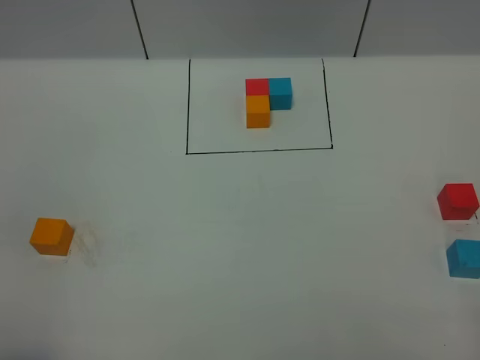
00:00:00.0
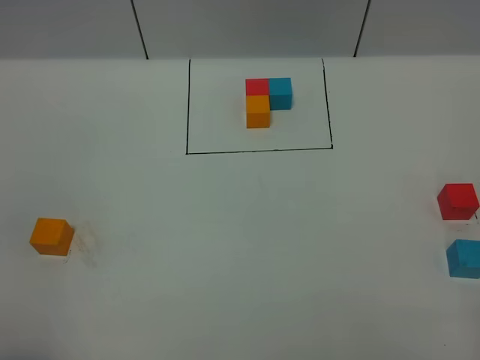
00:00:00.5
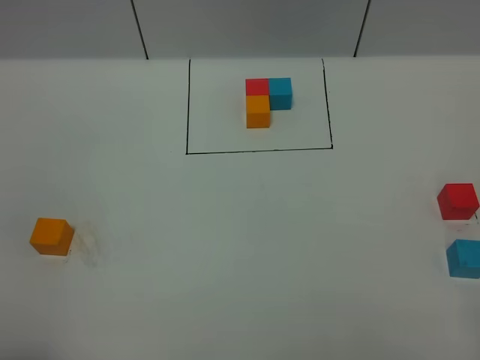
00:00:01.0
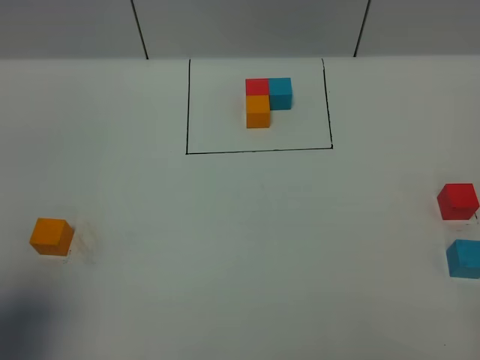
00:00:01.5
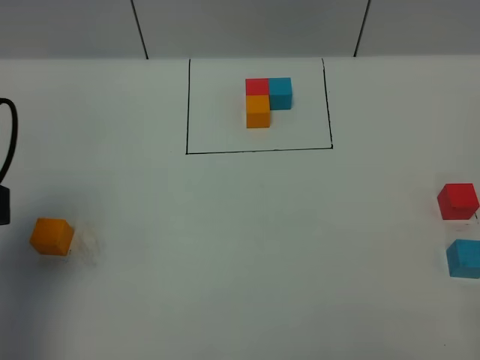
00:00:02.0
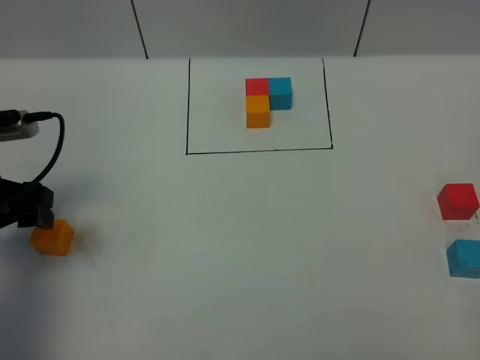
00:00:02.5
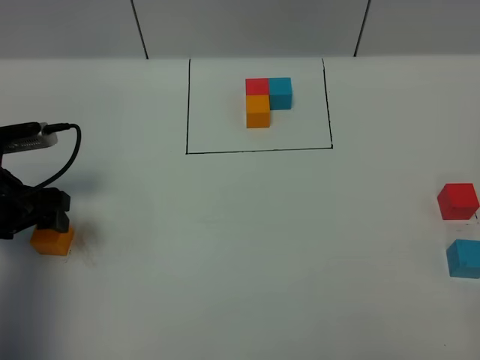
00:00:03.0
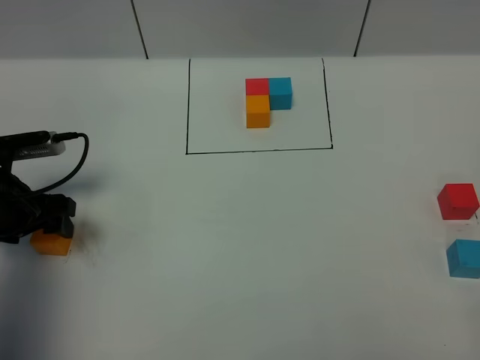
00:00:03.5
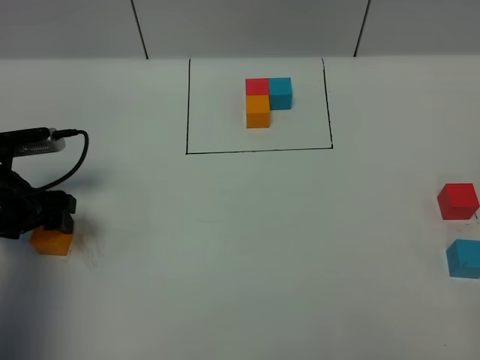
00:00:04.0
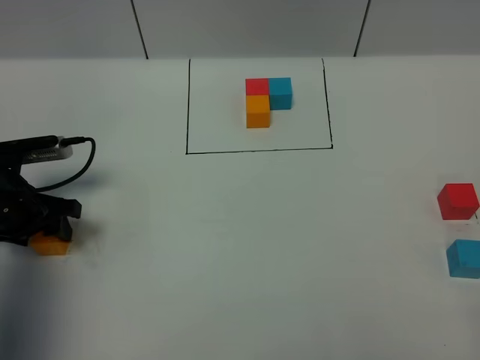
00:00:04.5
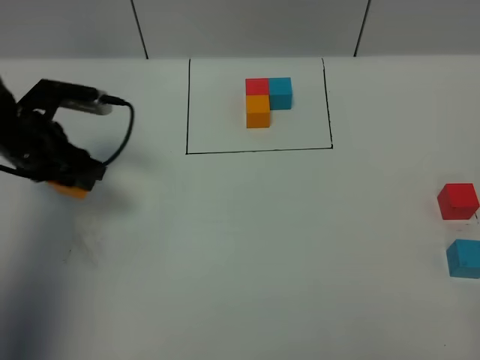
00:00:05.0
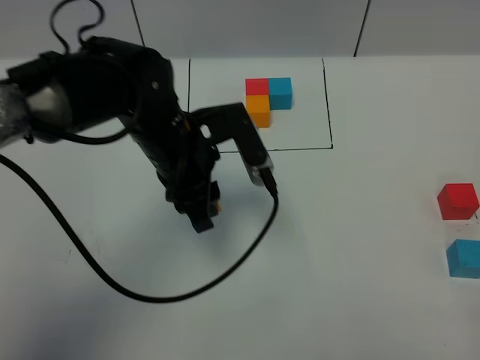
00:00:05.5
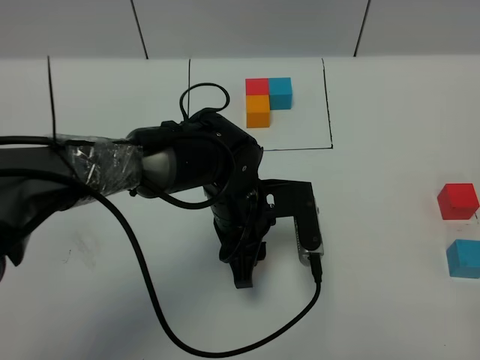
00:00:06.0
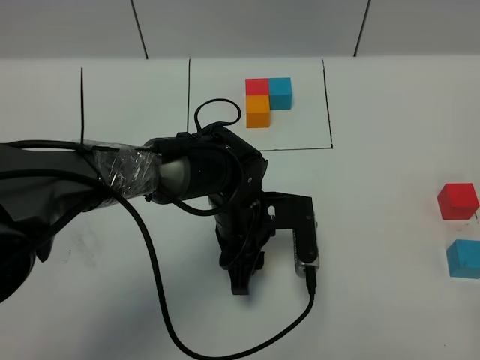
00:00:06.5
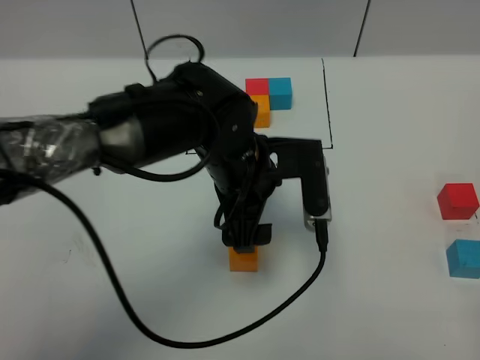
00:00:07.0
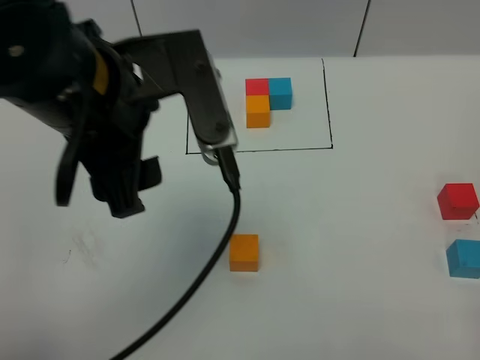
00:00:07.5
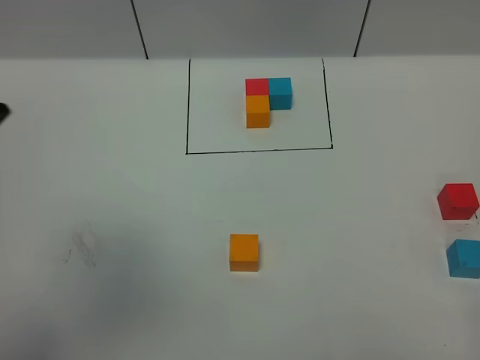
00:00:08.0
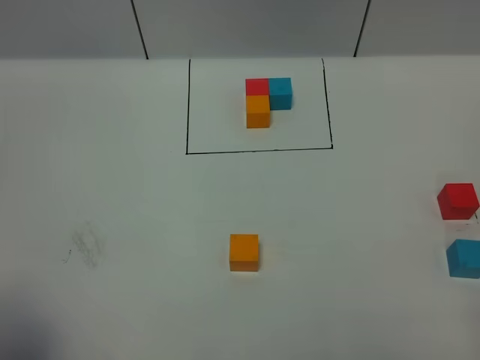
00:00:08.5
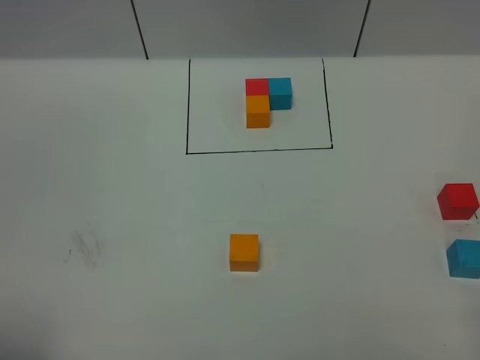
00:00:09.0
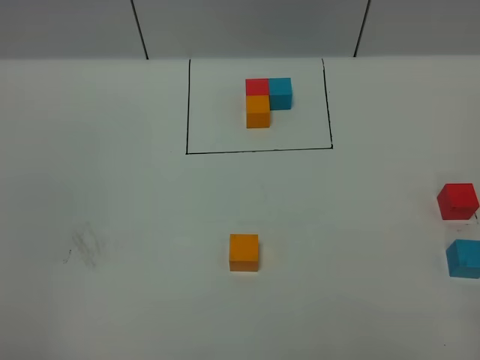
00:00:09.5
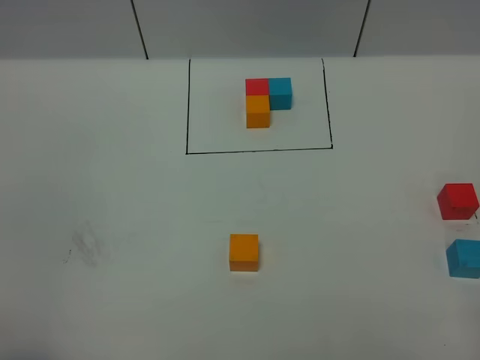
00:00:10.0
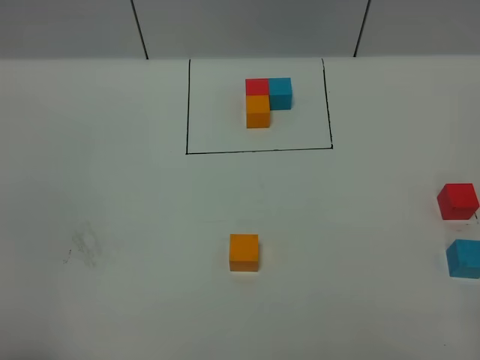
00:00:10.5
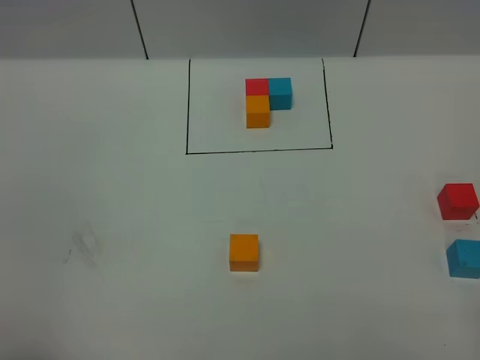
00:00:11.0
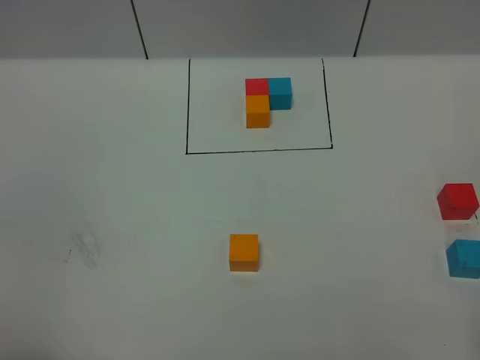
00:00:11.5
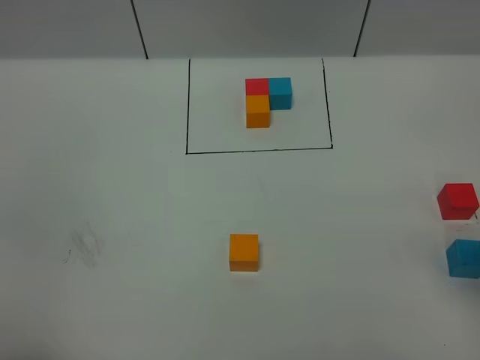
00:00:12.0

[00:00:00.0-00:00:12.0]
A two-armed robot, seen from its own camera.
Task of the whole recording: According to the building block template in front, assemble the scattered blocks together.
Step, 00:00:02.0 to 00:00:07.0: Put the orange cube in the center of the table.
00:00:00.0 to 00:00:02.0: The left gripper moves forward, about 20 cm.
00:00:02.0 to 00:00:04.0: The left gripper travels downward and forward by about 15 cm.
00:00:04.0 to 00:00:06.0: The left gripper heads to the right, covering approximately 30 cm, and closes.
00:00:06.0 to 00:00:08.0: The left gripper shifts approximately 40 cm upward, to the left and backward, and opens its fingers.
00:00:08.0 to 00:00:10.0: The left gripper heads downward, backward and to the left, covering some 25 cm.

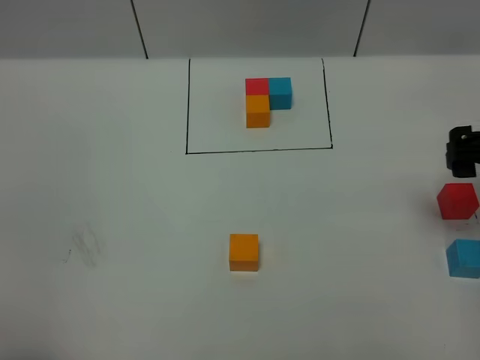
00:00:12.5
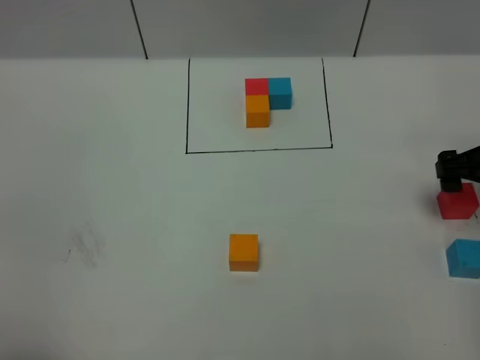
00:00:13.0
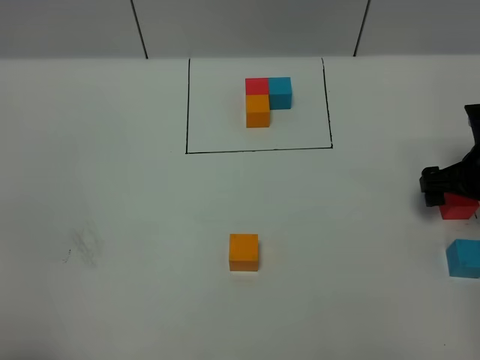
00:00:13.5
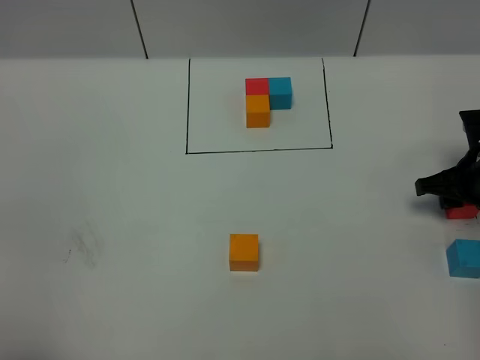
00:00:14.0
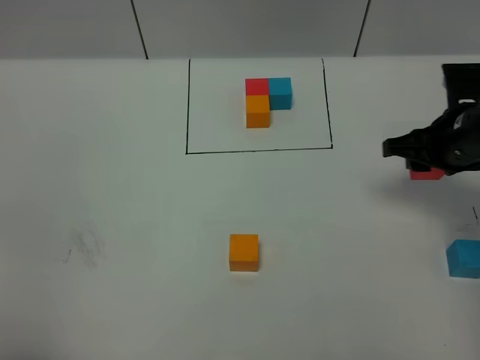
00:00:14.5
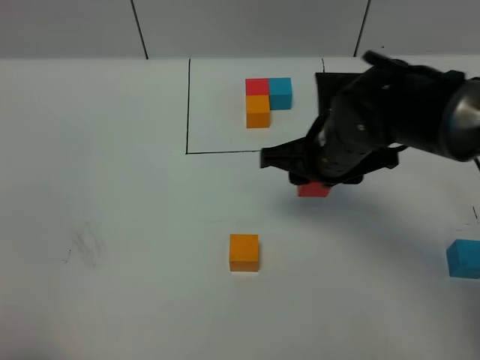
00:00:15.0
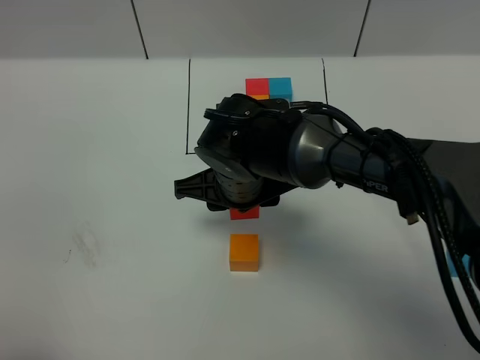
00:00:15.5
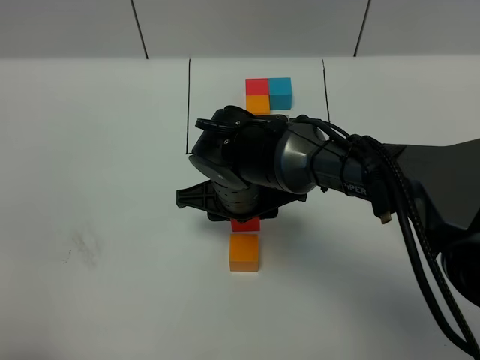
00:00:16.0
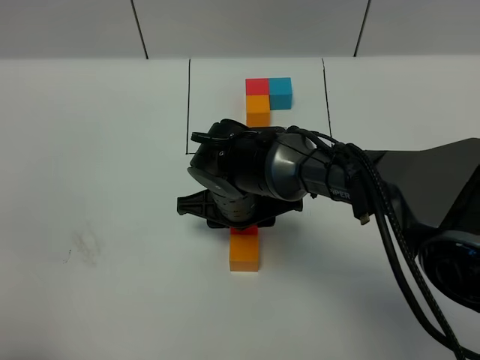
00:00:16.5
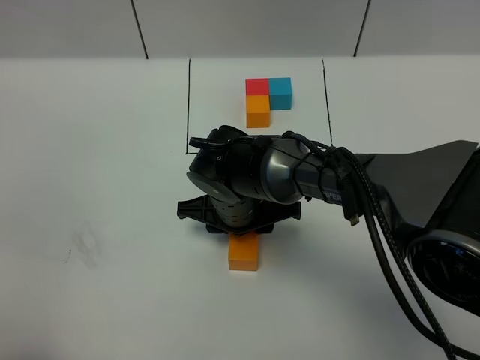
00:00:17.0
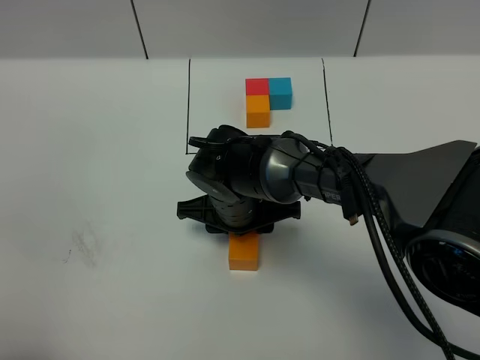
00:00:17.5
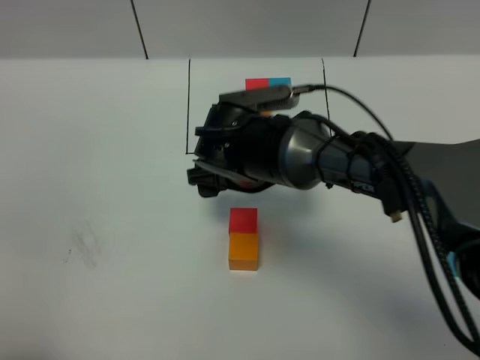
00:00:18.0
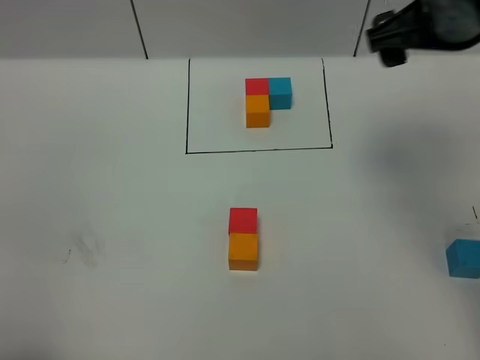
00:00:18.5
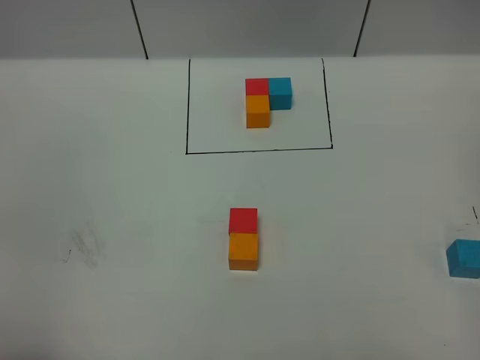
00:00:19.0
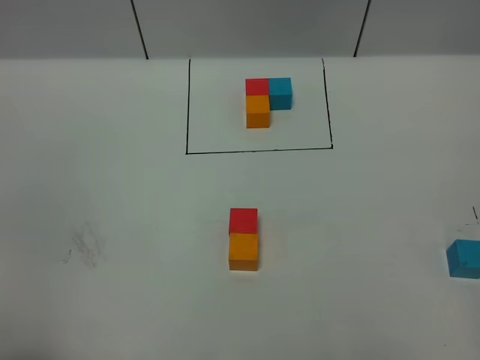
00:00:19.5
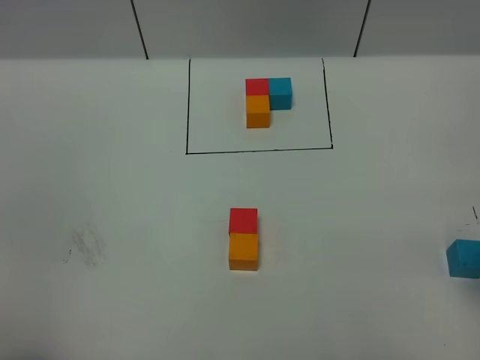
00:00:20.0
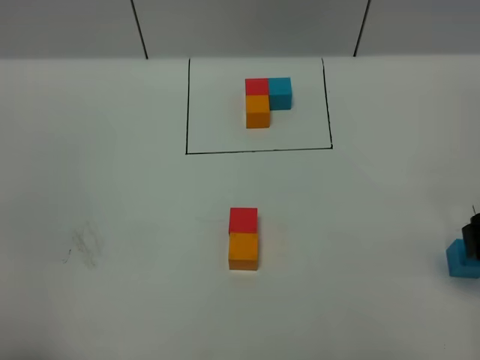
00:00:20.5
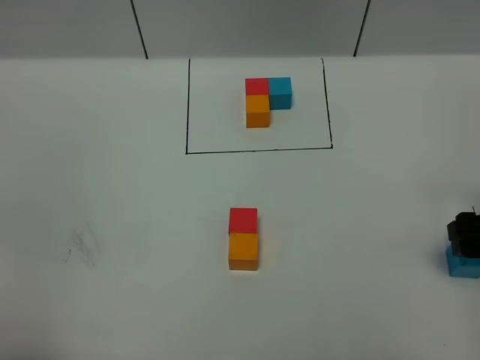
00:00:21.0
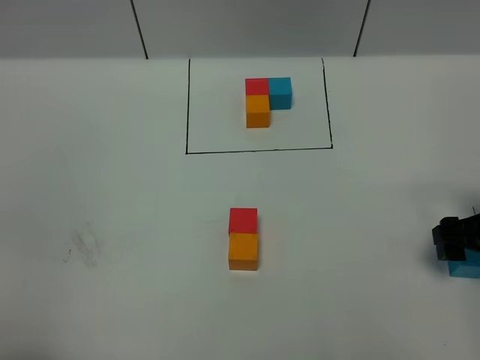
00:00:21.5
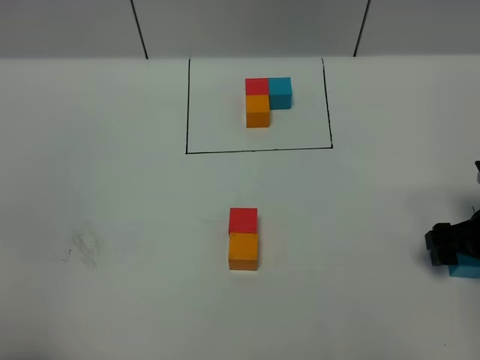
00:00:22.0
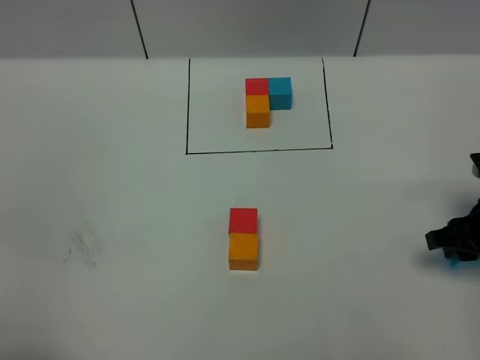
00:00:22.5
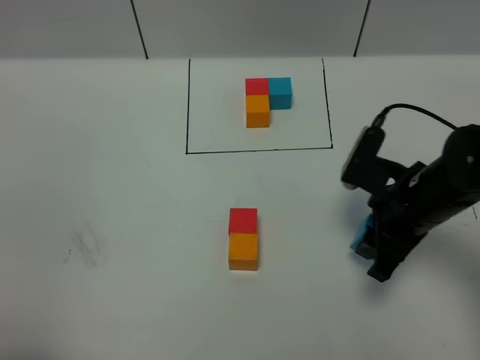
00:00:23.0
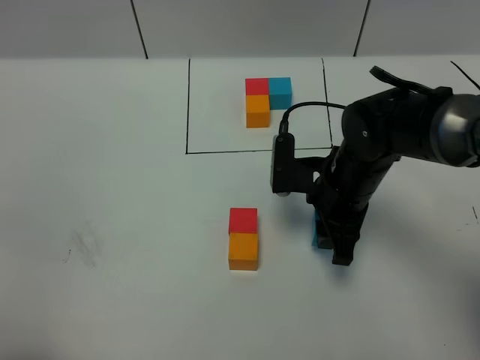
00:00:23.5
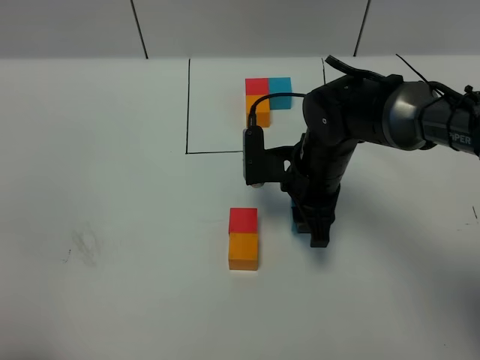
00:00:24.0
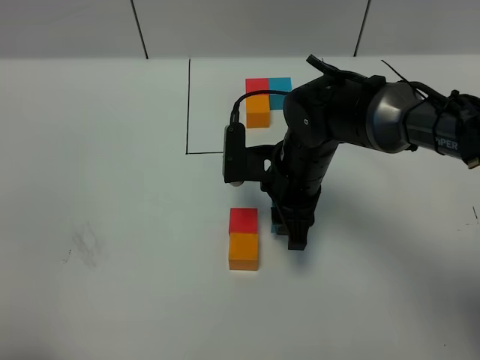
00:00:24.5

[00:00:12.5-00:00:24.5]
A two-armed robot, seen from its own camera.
Task of the whole recording: According to the building block template in front, assemble the scattered blocks together.
Step, 00:00:12.5 to 00:00:17.5: Put the red cube on the behind of the orange cube.
00:00:12.5 to 00:00:14.5: The right gripper travels downward and forward by roughly 10 cm, and closes.
00:00:14.5 to 00:00:16.5: The right gripper heads to the left, covering some 25 cm.
00:00:16.5 to 00:00:18.5: The right gripper heads upward and to the right, covering roughly 30 cm, and opens.
00:00:18.5 to 00:00:20.5: The right gripper is displaced downward, to the right and backward by about 25 cm.
00:00:20.5 to 00:00:22.5: The right gripper moves downward, roughly 5 cm, and closes.
00:00:22.5 to 00:00:24.5: The right gripper travels to the left by approximately 25 cm.

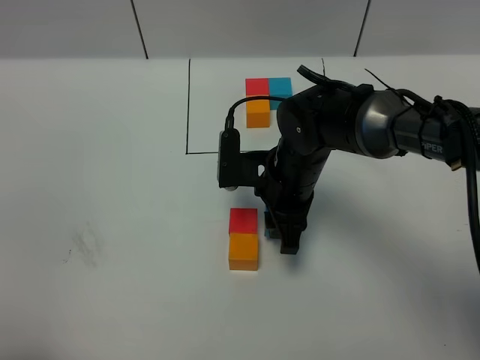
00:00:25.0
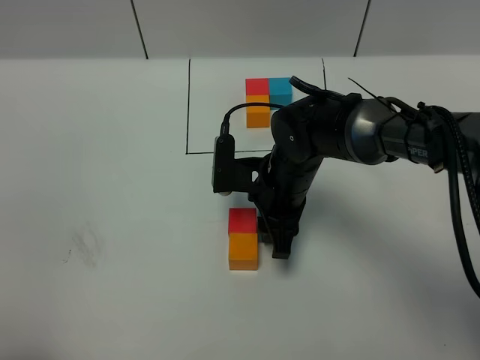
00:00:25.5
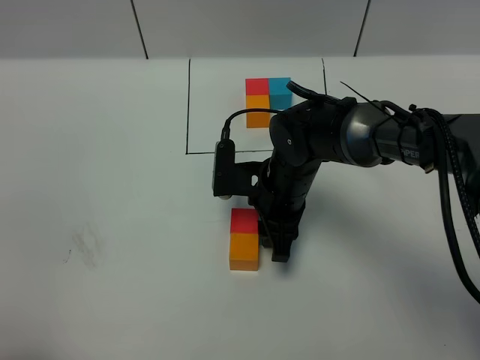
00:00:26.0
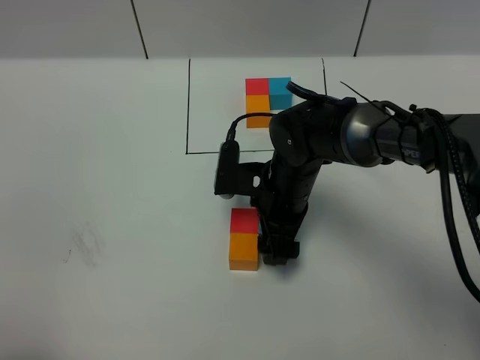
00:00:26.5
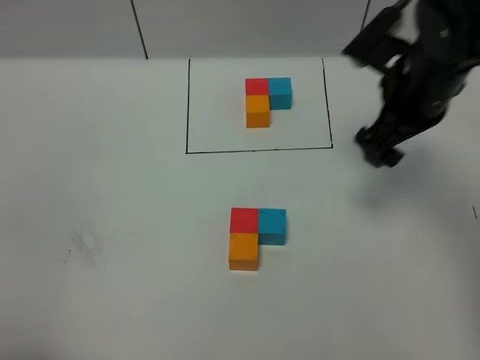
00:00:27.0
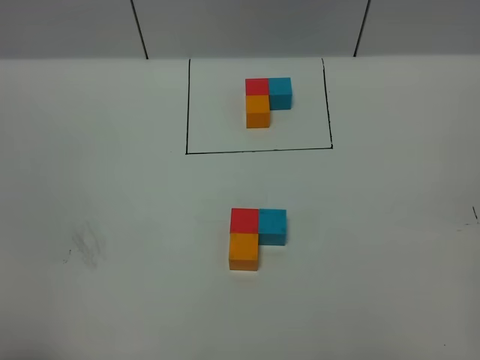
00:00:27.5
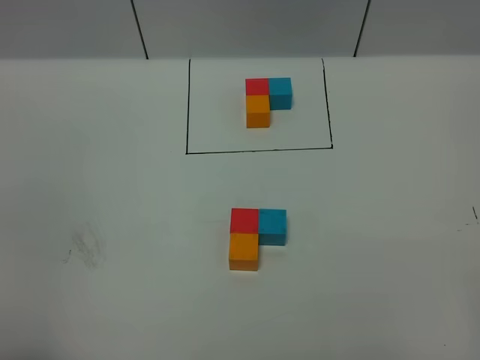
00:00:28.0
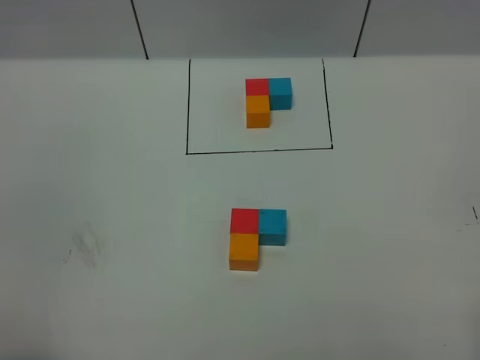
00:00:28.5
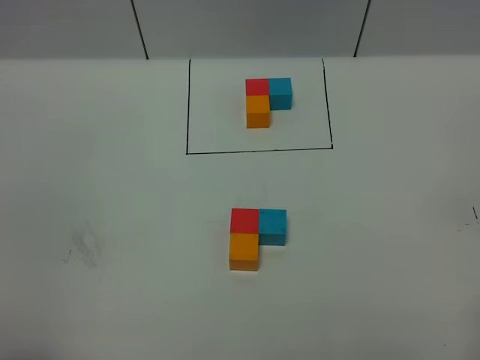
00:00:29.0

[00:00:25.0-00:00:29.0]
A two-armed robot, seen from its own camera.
Task of the whole recording: According to the building block template in front, assemble the scattered blocks together.
00:00:25.0 to 00:00:27.0: The right gripper is displaced to the right and upward by approximately 20 cm, and opens.
00:00:27.0 to 00:00:29.0: The right gripper heads backward, covering about 35 cm.
